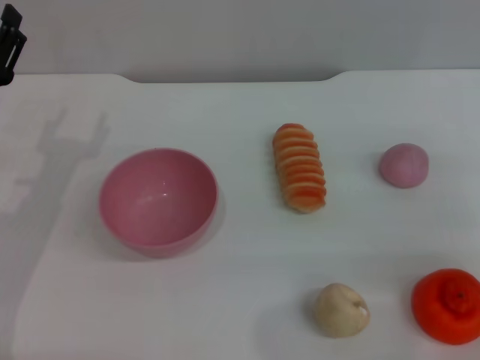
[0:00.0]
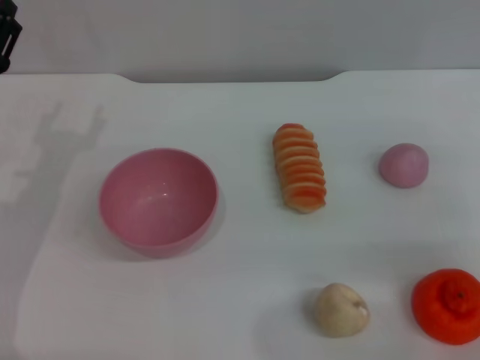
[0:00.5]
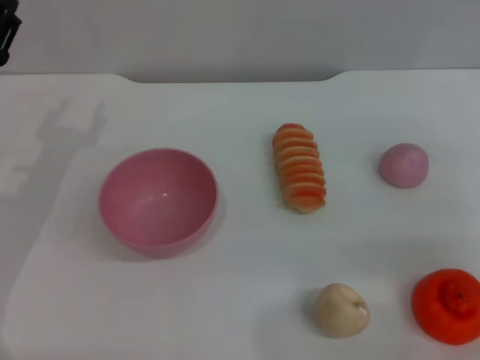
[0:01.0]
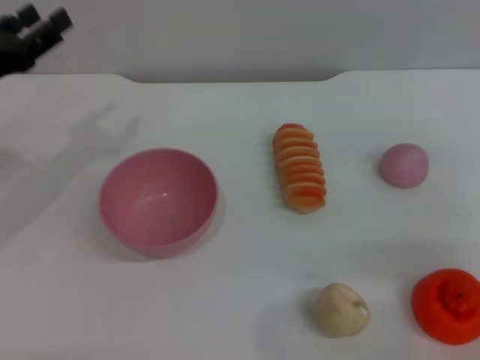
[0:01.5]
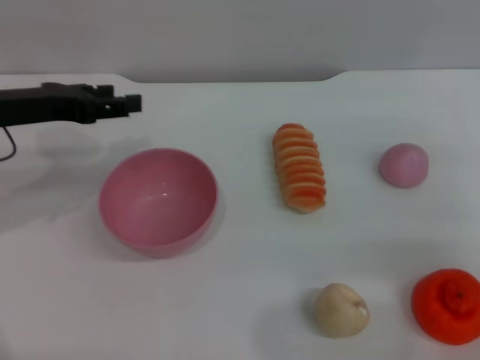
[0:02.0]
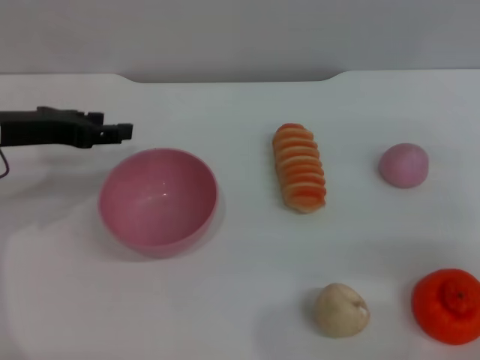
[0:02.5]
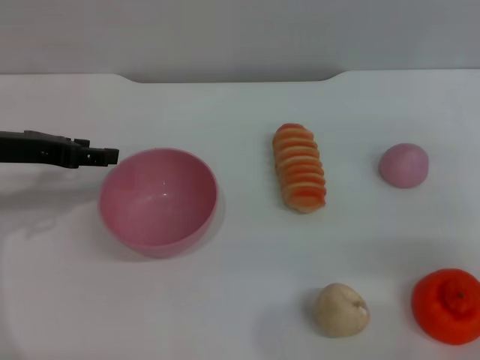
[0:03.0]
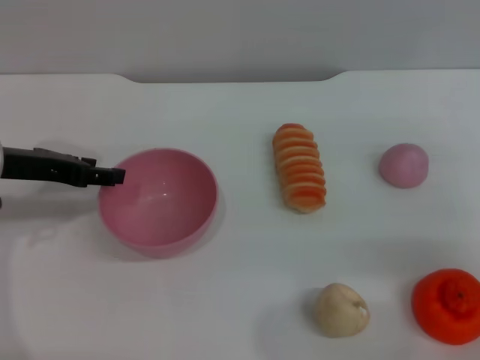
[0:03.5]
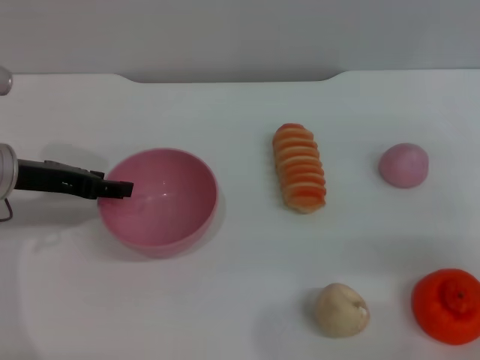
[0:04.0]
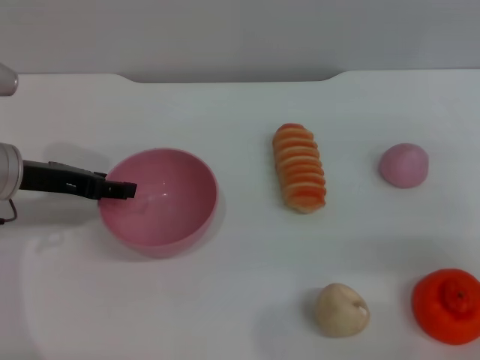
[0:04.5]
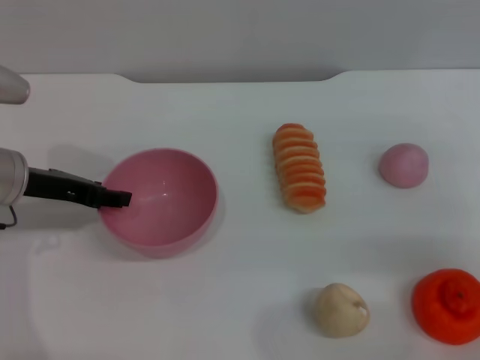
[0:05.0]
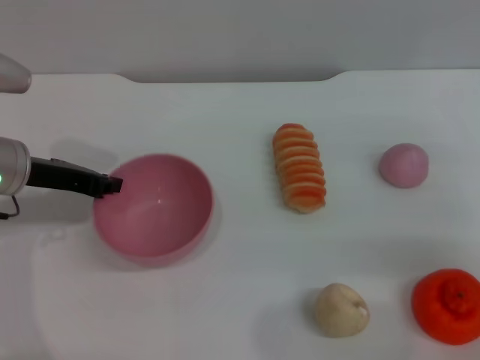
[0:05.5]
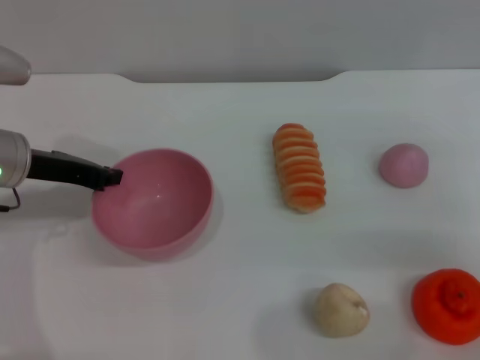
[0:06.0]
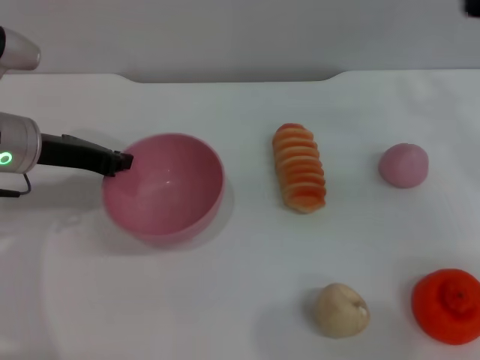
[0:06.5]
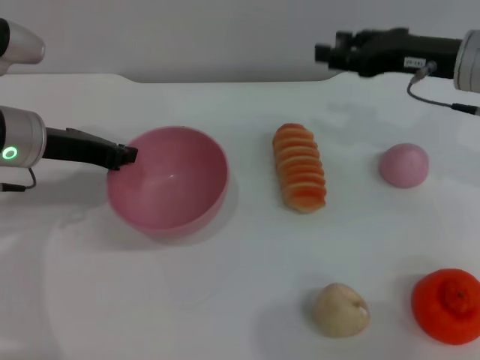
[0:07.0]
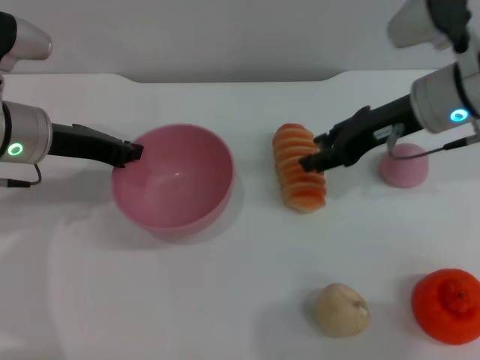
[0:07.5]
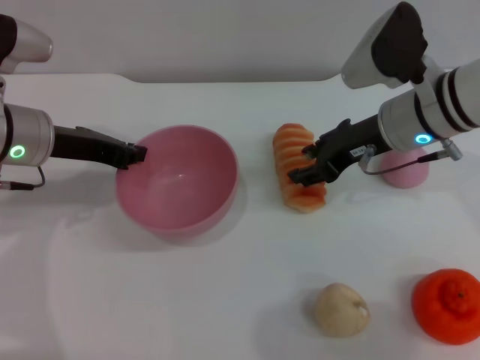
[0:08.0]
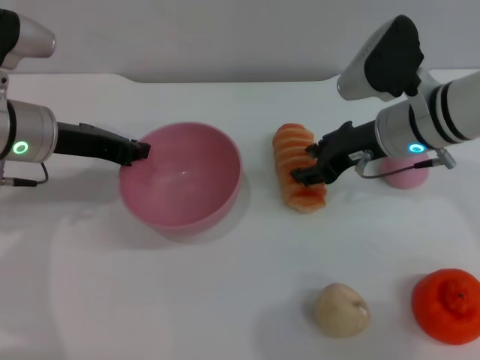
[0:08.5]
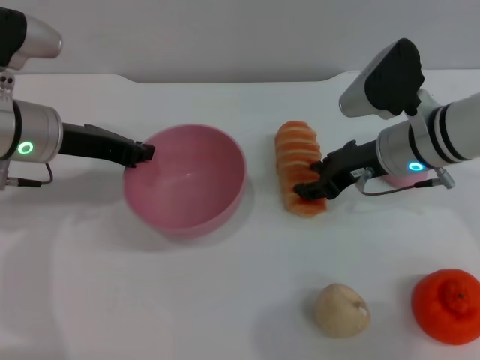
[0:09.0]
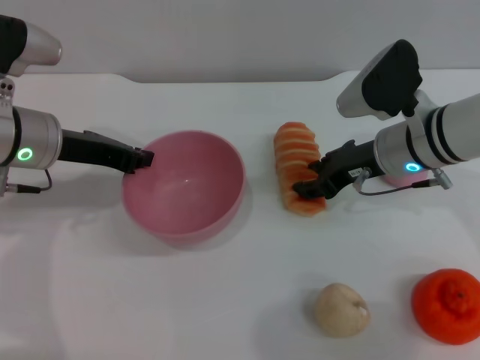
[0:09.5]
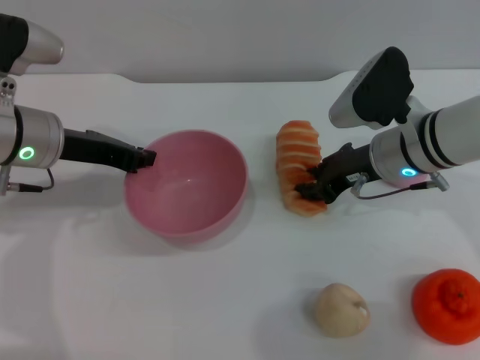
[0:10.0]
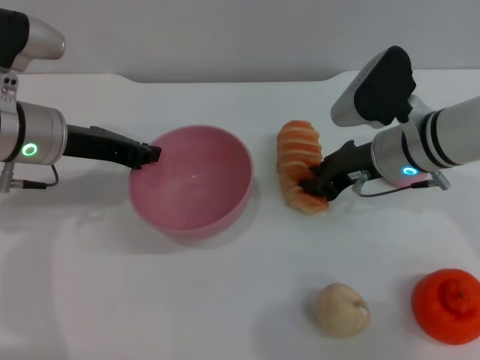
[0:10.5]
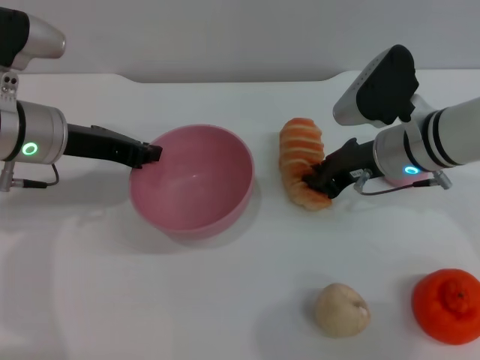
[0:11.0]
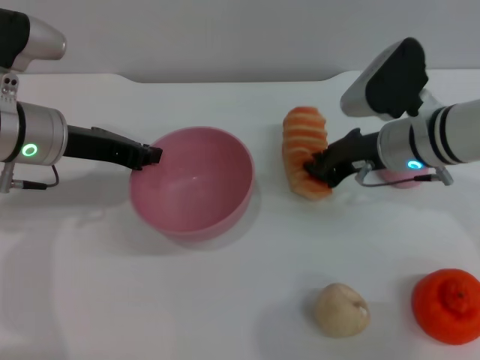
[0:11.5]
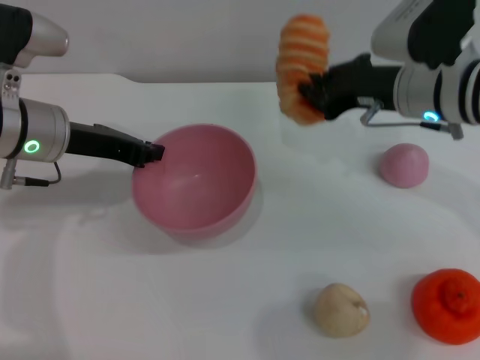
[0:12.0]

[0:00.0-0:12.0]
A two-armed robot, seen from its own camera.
Task of the whole recording: put the bread into the pink bowl and pour it out repeatedly.
Step, 0:00.0 to 0:06.0: Pick up the bowl with the left gripper.
Step, 0:06.5 to 0:12.0: Pick up the bread with the right gripper.
0:00.0 to 0:02.0: The left gripper goes about 10 cm upward and forward.
0:04.0 to 0:06.0: The left gripper closes up.
0:06.0 to 0:08.0: The right gripper heads to the left and forward, covering some 20 cm.
0:08.0 to 0:10.0: The grippers make only small movements.
0:10.0 to 0:12.0: The right gripper heads upward, covering some 5 cm, and closes its fingers.

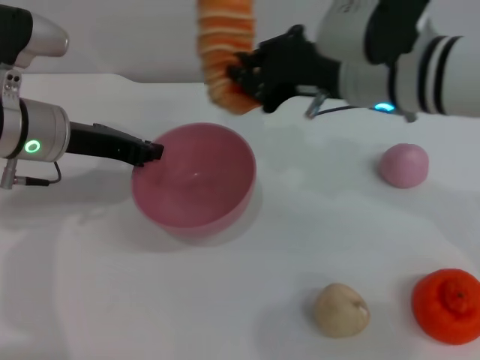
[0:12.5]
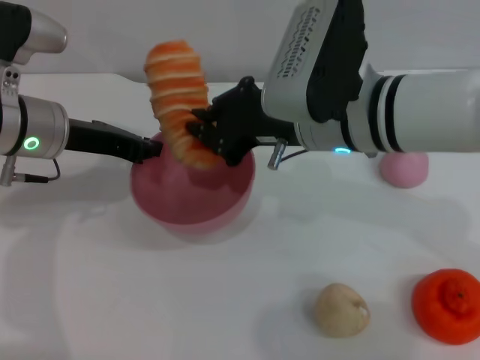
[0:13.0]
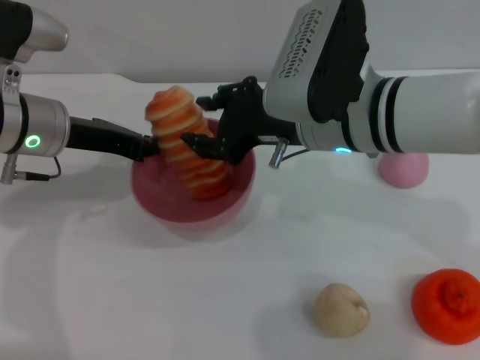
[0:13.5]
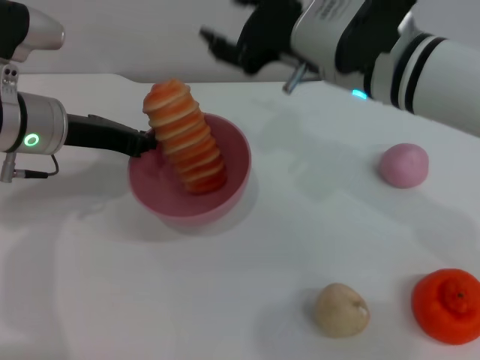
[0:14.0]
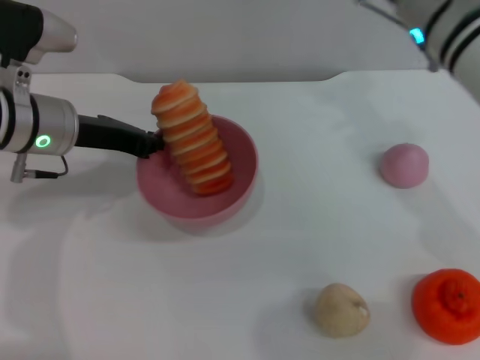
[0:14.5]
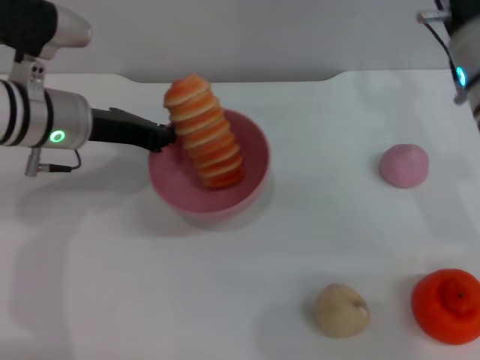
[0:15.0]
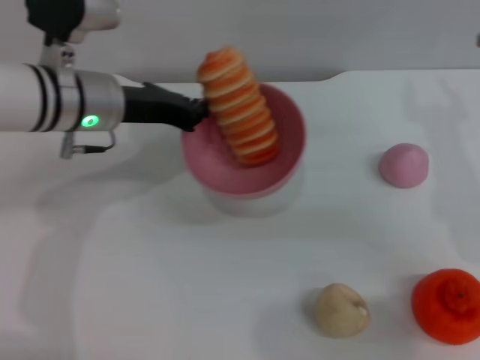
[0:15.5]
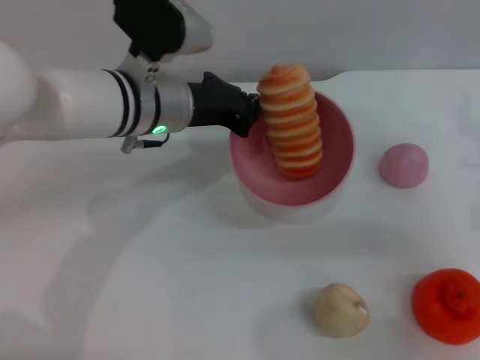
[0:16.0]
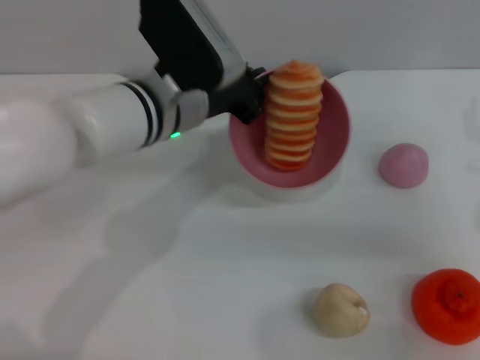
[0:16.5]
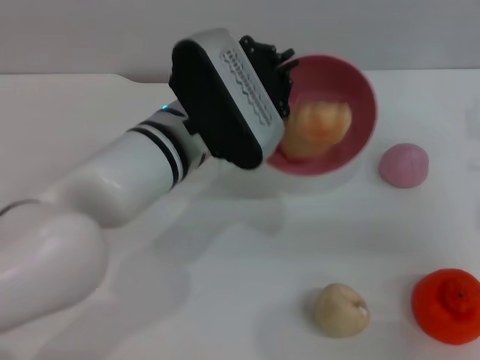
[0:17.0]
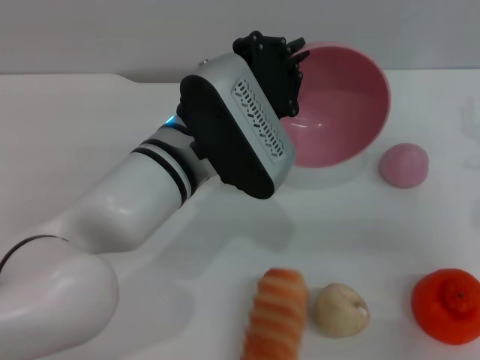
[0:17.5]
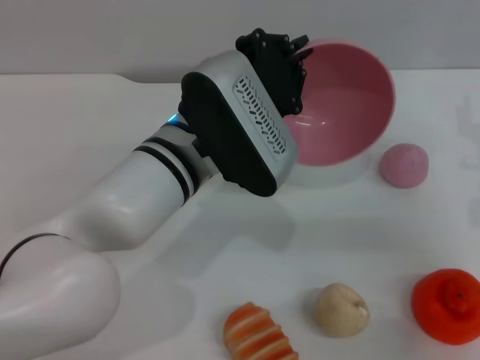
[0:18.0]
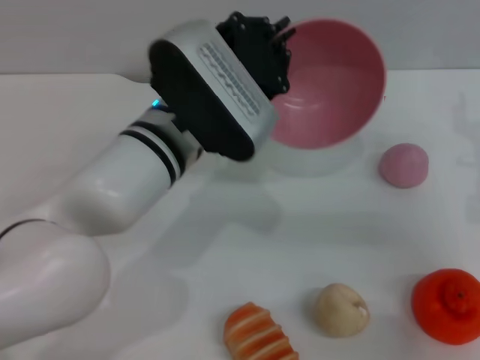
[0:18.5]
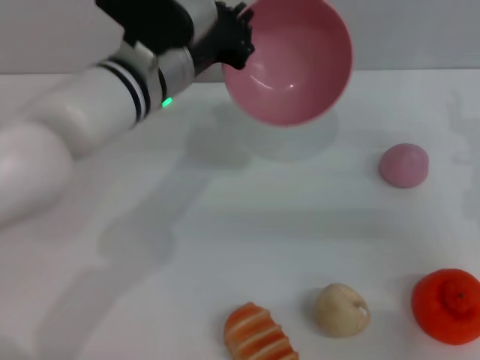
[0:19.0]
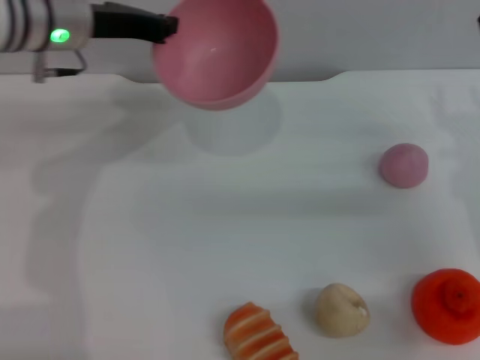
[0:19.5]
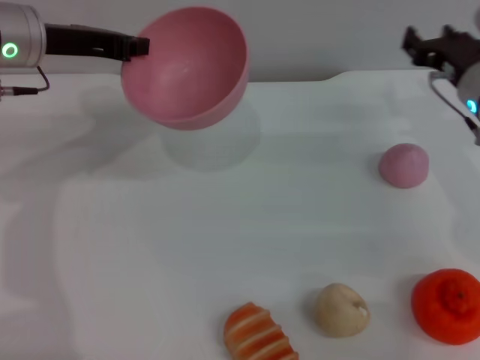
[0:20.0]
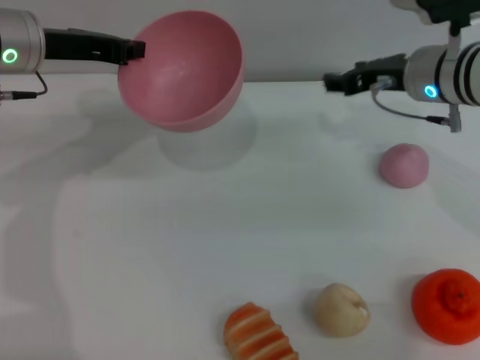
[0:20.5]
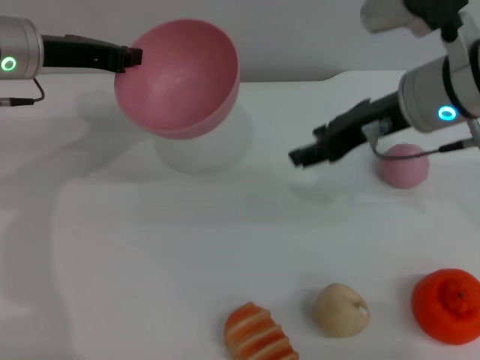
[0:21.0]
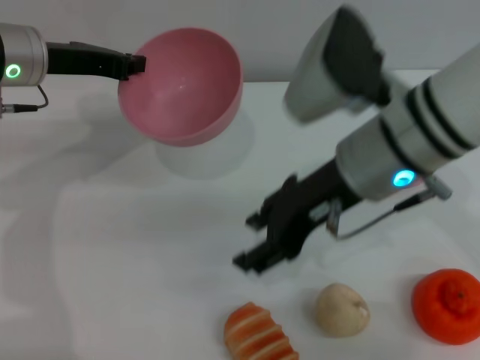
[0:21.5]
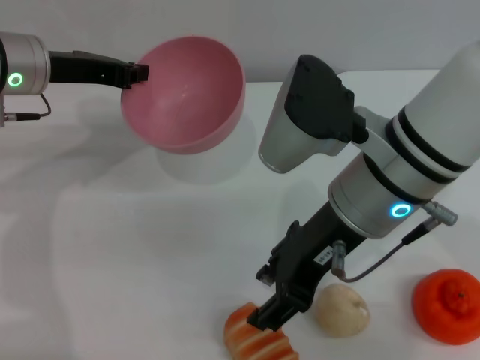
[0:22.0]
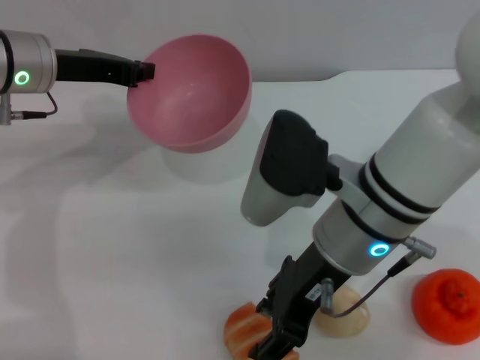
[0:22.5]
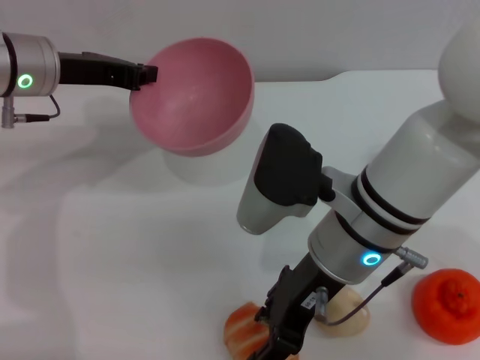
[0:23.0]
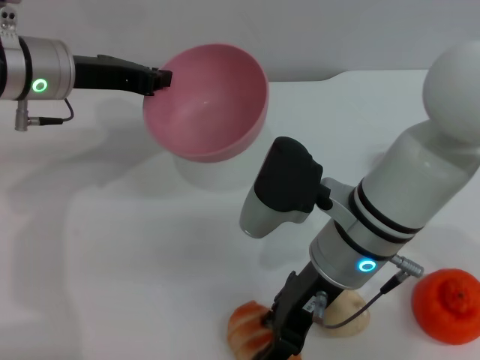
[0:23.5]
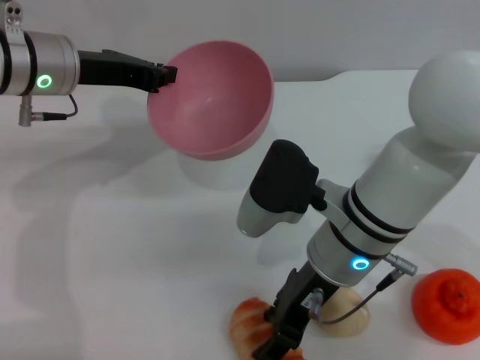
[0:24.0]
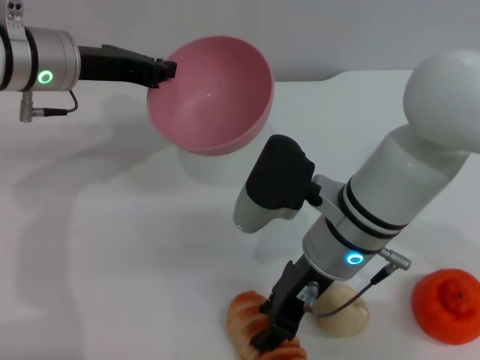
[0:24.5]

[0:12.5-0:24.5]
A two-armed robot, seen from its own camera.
Task of the whole recording: put the bread into the pink bowl and pour it out repeatedly.
Step, 0:13.0 to 0:17.5: Pour the bread out of the bowl.
0:12.5 to 0:14.5: The right gripper opens.
0:14.5 to 0:16.5: The left gripper goes roughly 15 cm to the right. The right gripper moves to the right, downward and backward, approximately 20 cm.
0:16.5 to 0:18.5: The left gripper moves backward, some 5 cm.
0:18.5 to 0:20.5: The right gripper goes about 15 cm forward and to the left; the left gripper goes about 20 cm to the left and forward.
0:20.5 to 0:22.5: The right gripper moves backward and to the left, some 15 cm.
0:22.5 to 0:24.5: The right gripper ends up roughly 5 cm from where it was.

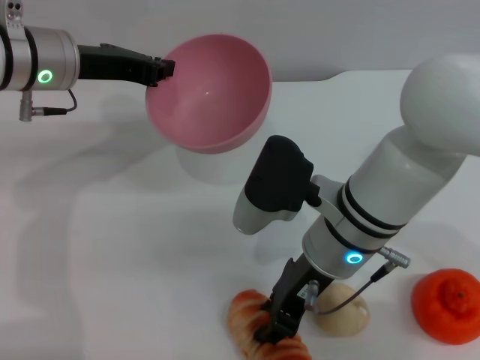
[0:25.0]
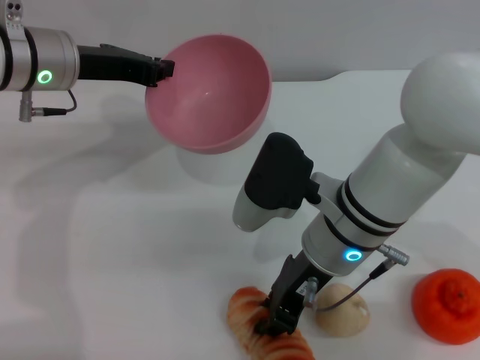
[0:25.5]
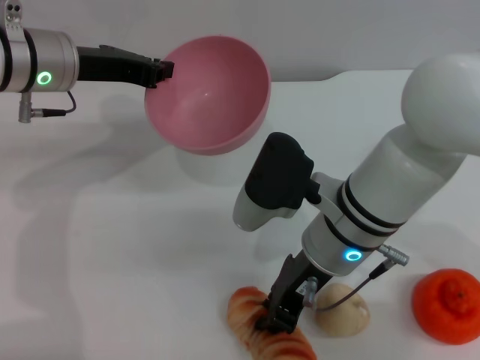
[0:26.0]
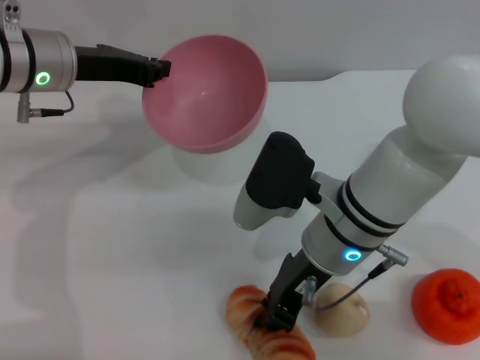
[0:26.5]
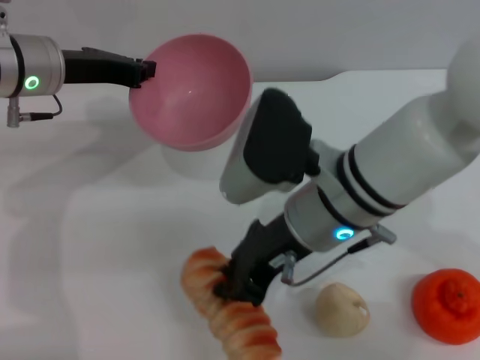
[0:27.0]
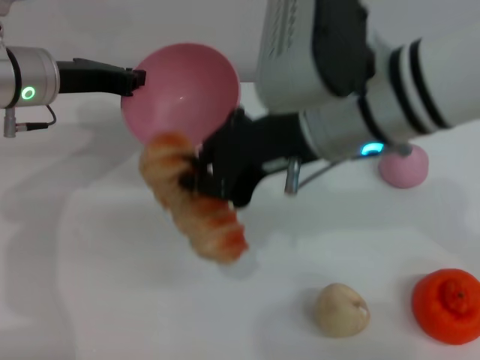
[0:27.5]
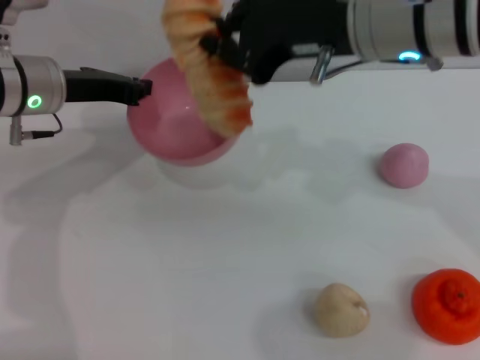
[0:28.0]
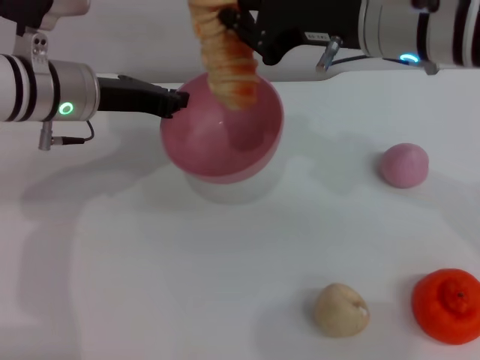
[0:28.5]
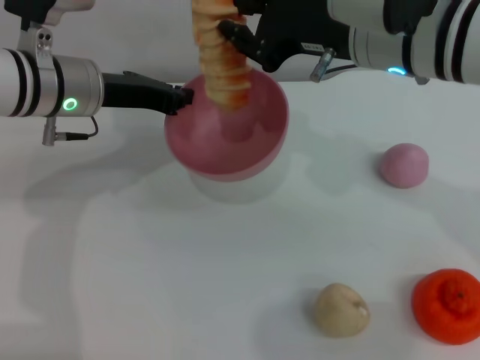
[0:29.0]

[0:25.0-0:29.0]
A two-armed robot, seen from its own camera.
Task of the whole recording: put the bread into the pink bowl and pour it out repeatedly.
Step, 0:25.0 to 0:27.0: Pick up the bread with the right gripper.
0:25.0 to 0:27.0: The right gripper closes.
0:27.0 to 0:29.0: The right gripper is displaced upward, forward and to the right by approximately 10 cm.
